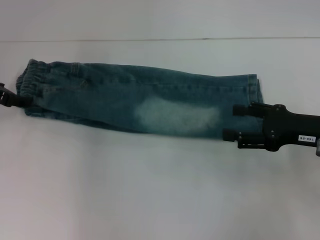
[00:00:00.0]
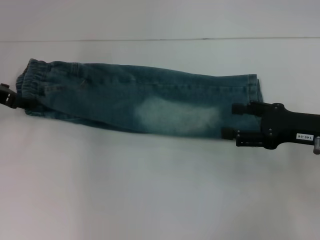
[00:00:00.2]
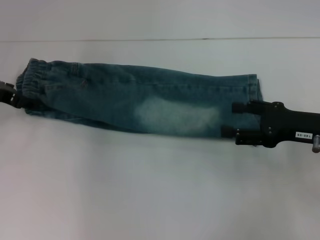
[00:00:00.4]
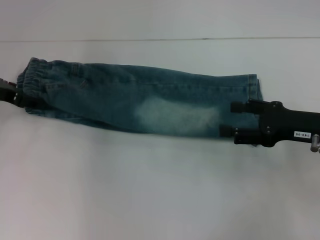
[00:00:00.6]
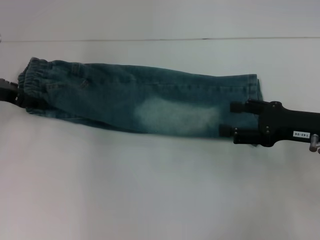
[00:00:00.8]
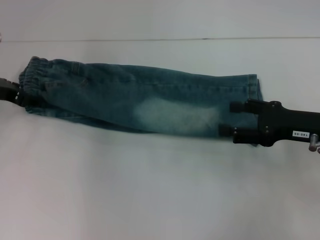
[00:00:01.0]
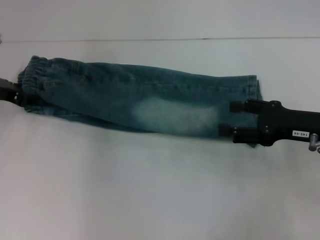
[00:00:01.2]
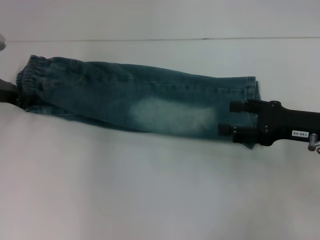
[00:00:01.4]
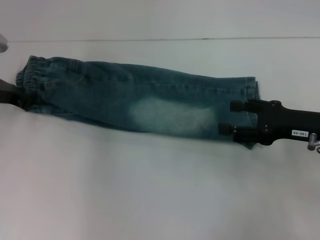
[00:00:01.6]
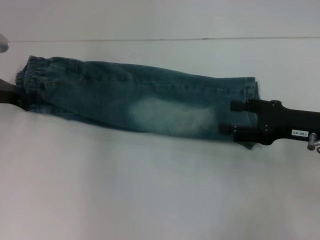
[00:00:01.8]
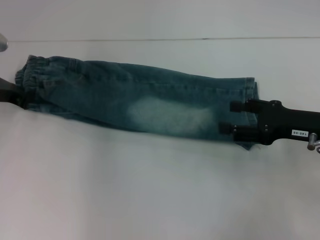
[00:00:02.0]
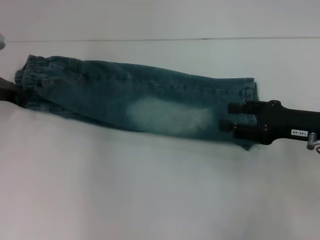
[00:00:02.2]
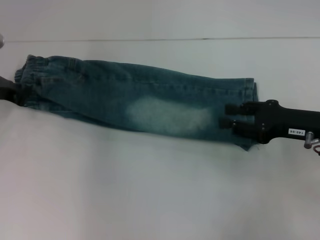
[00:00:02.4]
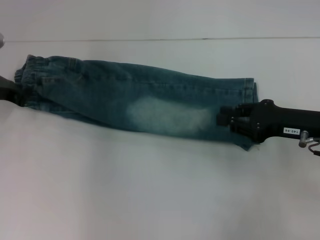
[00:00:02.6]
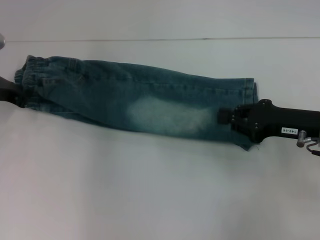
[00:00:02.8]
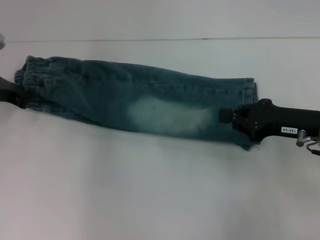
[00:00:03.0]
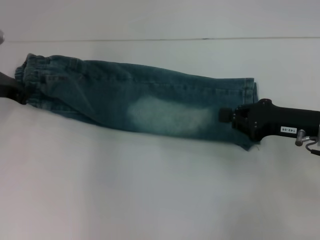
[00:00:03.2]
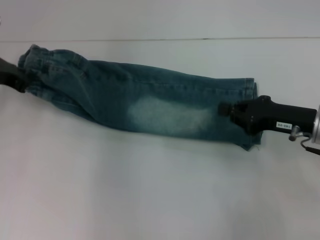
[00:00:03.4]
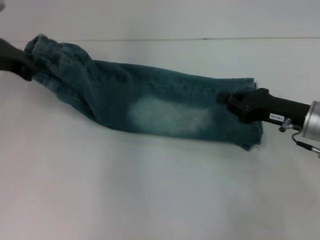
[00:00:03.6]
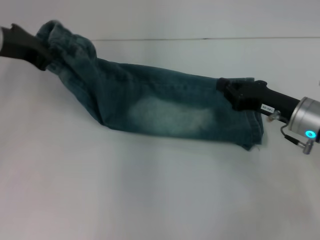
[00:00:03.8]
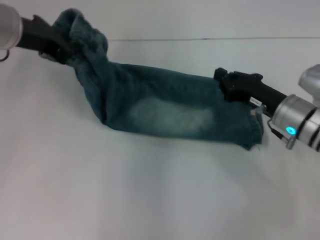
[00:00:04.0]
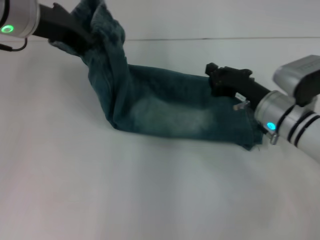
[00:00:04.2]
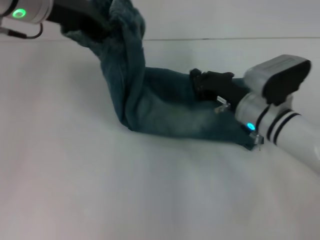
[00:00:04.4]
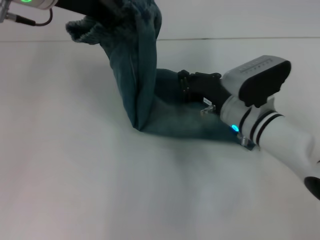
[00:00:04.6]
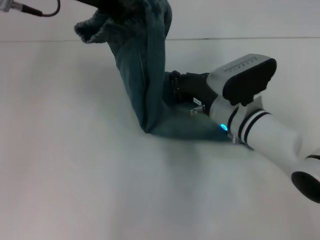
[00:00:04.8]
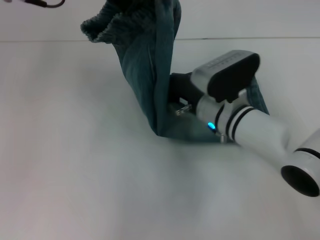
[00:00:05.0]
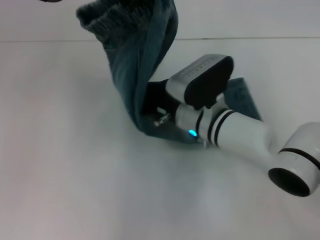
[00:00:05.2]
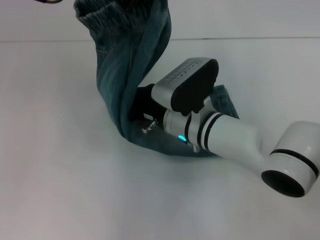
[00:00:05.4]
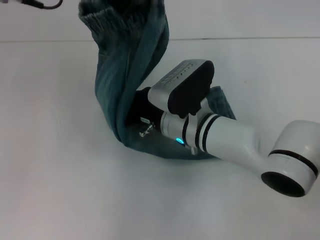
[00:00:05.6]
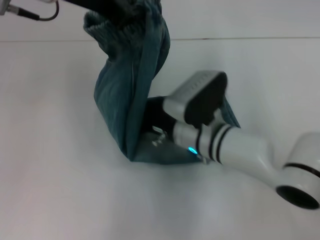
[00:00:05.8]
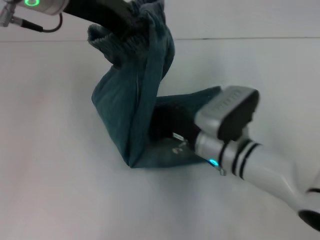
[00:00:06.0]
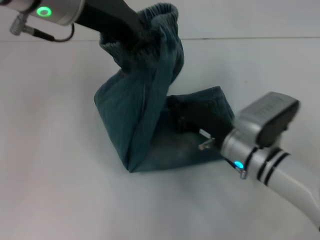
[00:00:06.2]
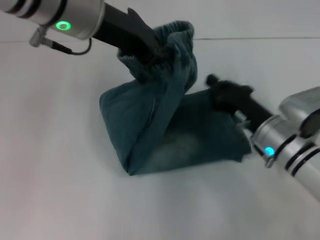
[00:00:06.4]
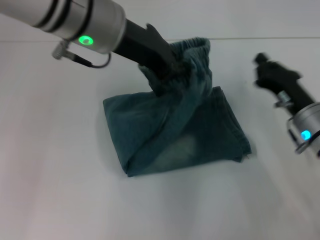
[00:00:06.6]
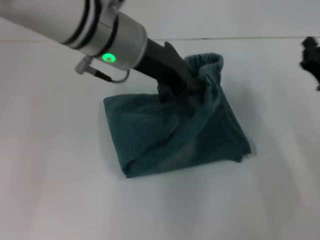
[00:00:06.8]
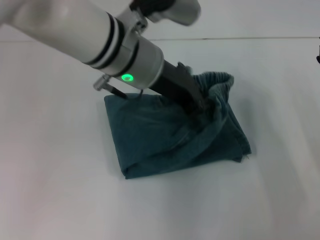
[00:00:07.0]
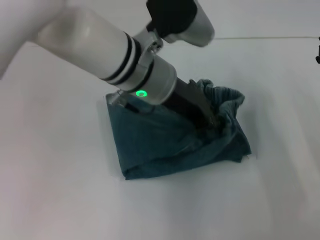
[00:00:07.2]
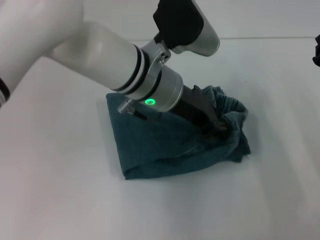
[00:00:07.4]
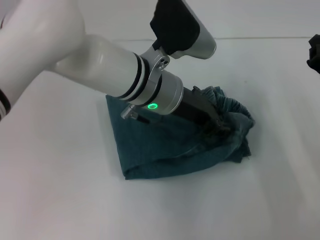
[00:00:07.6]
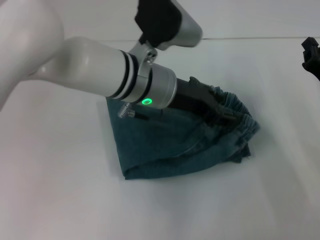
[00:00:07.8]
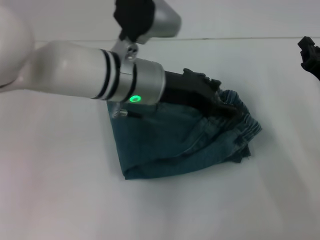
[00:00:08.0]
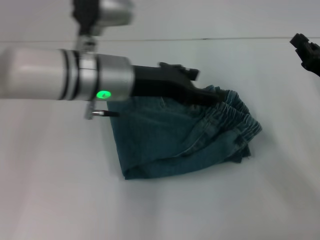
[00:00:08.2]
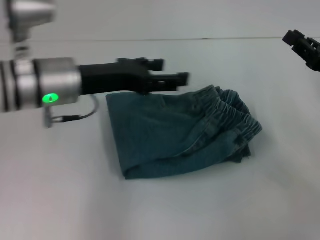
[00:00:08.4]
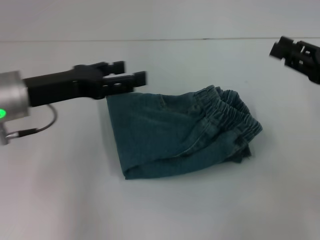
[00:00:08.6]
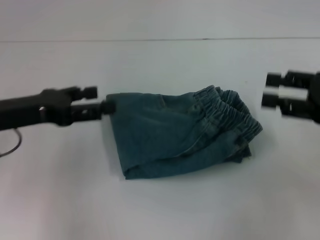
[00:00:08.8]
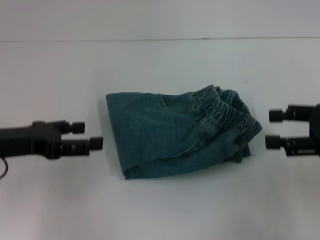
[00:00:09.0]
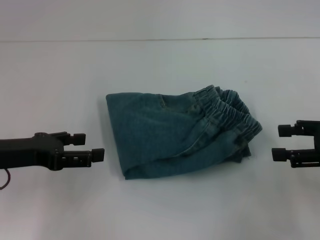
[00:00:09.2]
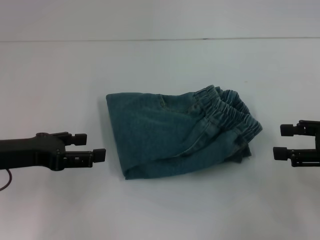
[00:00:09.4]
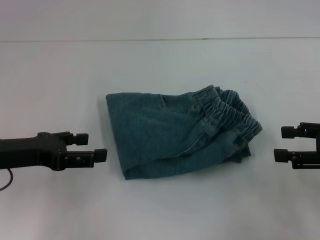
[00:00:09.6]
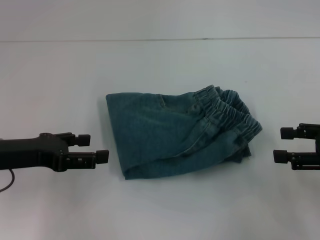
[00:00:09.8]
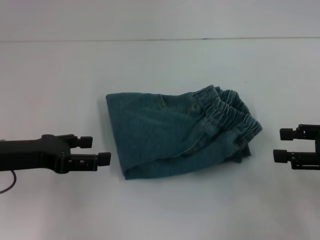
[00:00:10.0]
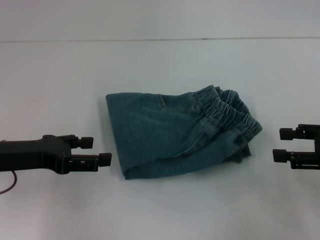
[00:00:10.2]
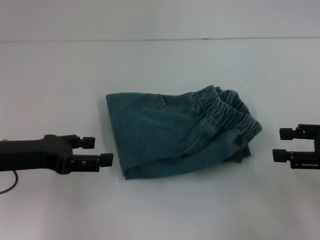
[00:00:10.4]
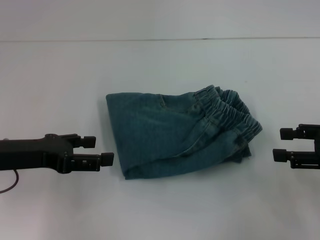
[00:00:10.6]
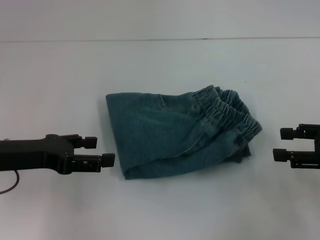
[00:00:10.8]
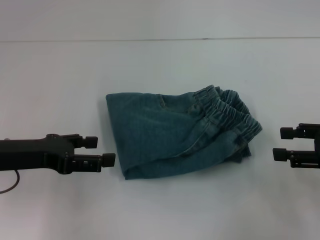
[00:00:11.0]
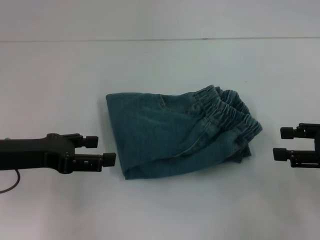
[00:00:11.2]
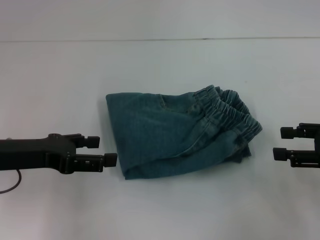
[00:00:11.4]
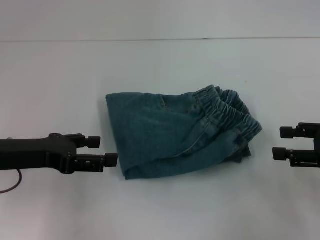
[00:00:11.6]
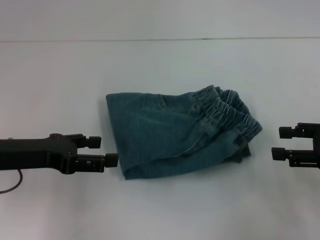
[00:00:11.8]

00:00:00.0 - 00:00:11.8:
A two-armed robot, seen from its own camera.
Step, 00:00:02.0 - 00:00:05.8: Press the middle of the pants with your right hand.
Step, 00:00:06.2 - 00:00:08.0: Fold to the right with your left hand.
00:00:00.0 - 00:00:01.4: The grippers move only a little.
00:00:01.4 - 00:00:03.0: The right gripper closes, while the left gripper closes up.
00:00:03.0 - 00:00:04.4: The right gripper goes roughly 10 cm to the left, while the left gripper moves upward and to the right, some 20 cm.
00:00:04.4 - 00:00:06.0: The right gripper travels to the left by about 5 cm.
00:00:06.0 - 00:00:07.4: The left gripper shifts about 15 cm downward and to the right, while the right gripper travels to the right by some 20 cm.
00:00:07.4 - 00:00:08.8: The left gripper travels to the left by about 25 cm, and opens up. Meanwhile the right gripper shifts roughly 10 cm upward, and opens up.
00:00:08.8 - 00:00:10.4: The right gripper changes place by roughly 5 cm, and opens up.
00:00:10.4 - 00:00:11.8: Both grippers stay put.

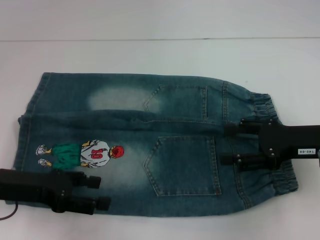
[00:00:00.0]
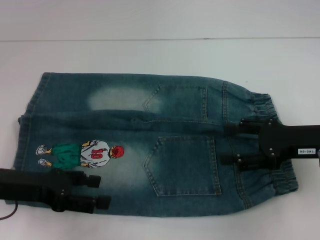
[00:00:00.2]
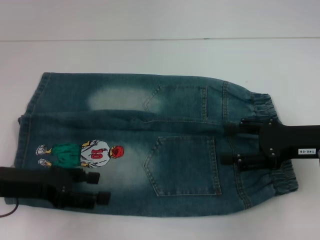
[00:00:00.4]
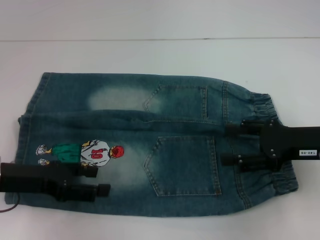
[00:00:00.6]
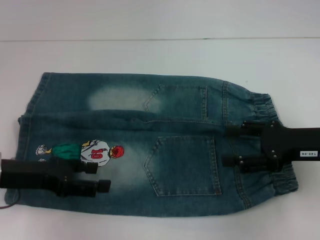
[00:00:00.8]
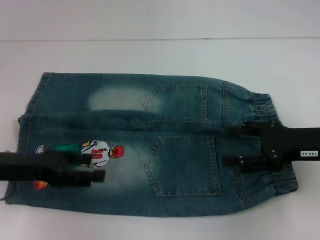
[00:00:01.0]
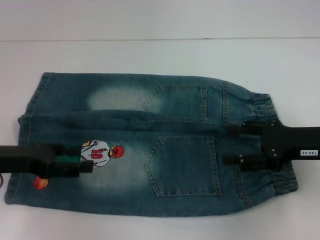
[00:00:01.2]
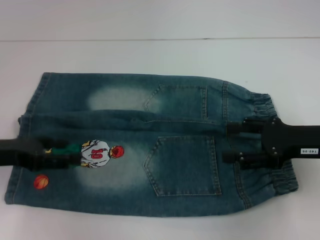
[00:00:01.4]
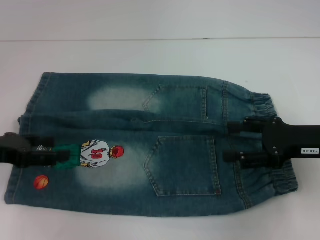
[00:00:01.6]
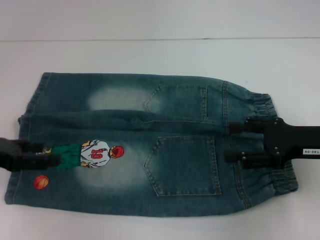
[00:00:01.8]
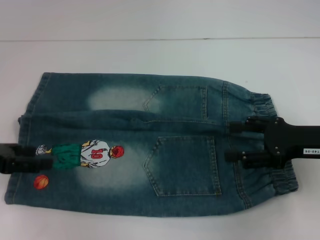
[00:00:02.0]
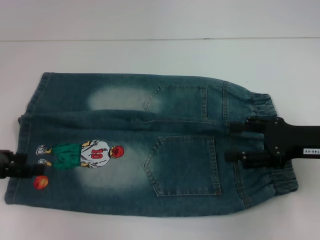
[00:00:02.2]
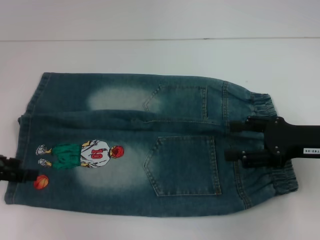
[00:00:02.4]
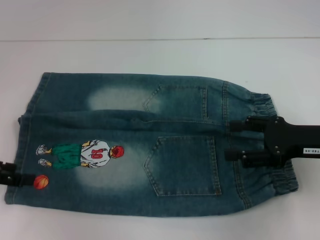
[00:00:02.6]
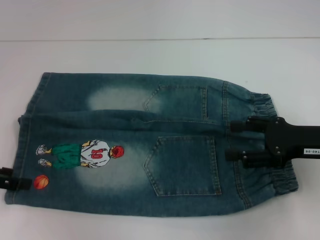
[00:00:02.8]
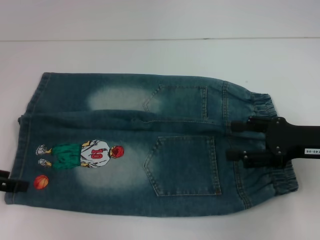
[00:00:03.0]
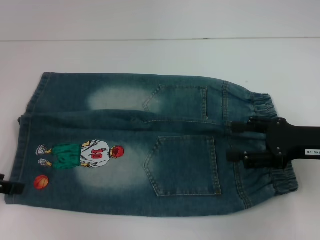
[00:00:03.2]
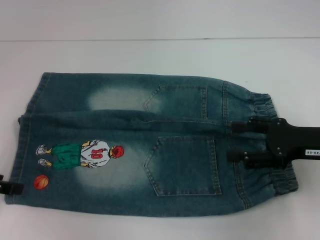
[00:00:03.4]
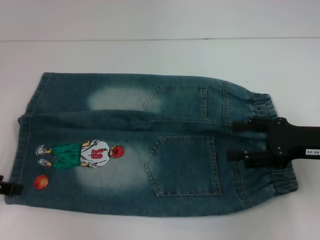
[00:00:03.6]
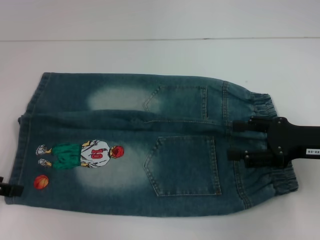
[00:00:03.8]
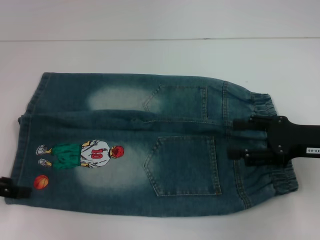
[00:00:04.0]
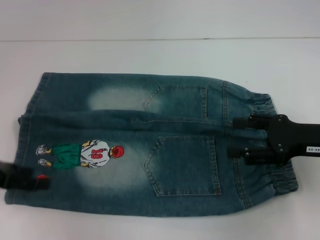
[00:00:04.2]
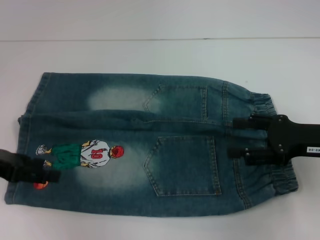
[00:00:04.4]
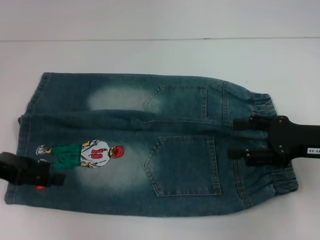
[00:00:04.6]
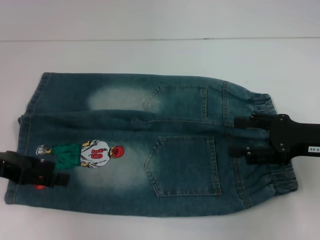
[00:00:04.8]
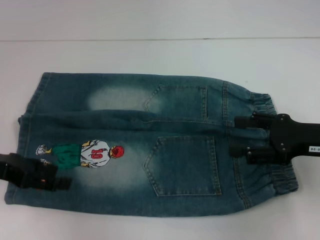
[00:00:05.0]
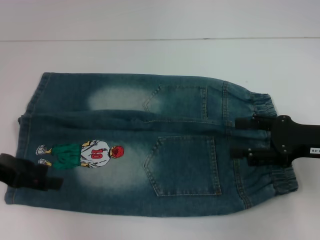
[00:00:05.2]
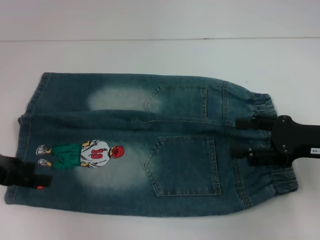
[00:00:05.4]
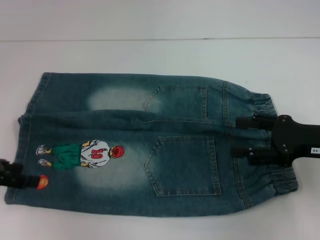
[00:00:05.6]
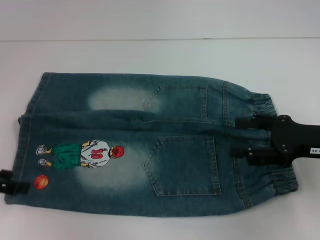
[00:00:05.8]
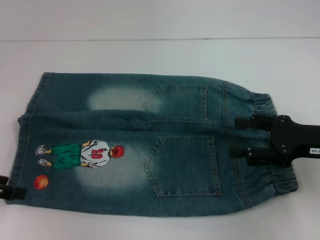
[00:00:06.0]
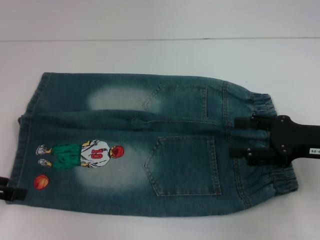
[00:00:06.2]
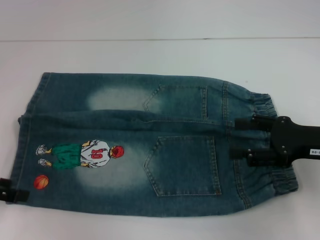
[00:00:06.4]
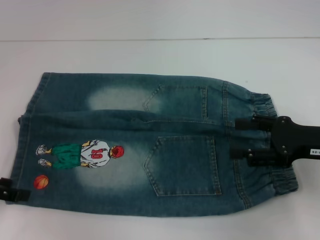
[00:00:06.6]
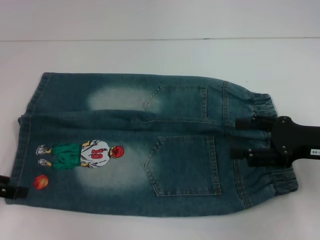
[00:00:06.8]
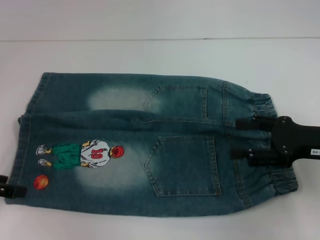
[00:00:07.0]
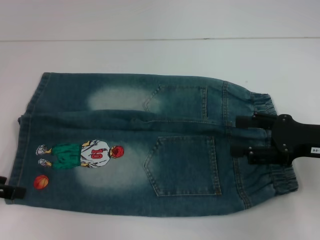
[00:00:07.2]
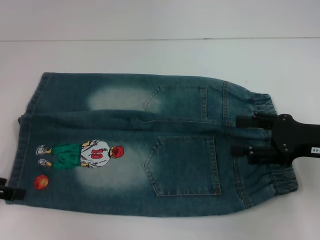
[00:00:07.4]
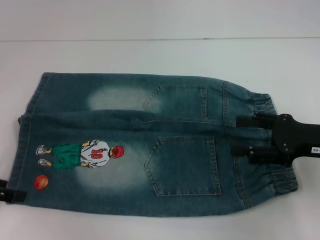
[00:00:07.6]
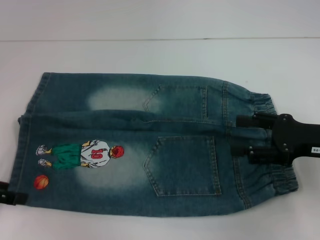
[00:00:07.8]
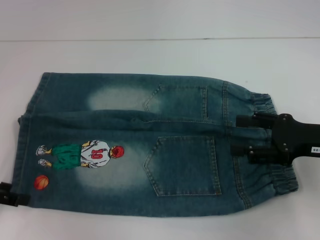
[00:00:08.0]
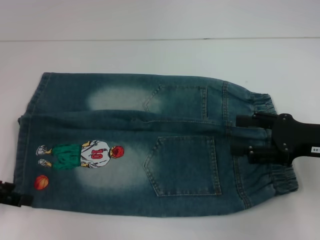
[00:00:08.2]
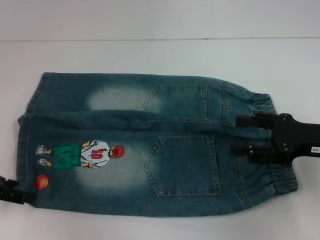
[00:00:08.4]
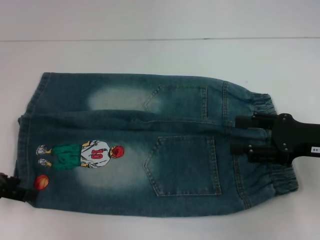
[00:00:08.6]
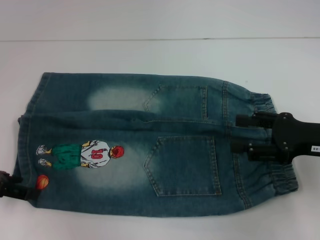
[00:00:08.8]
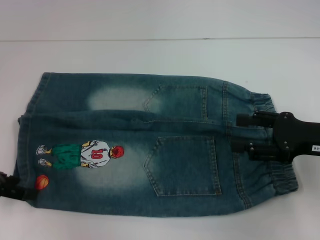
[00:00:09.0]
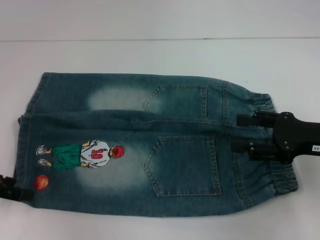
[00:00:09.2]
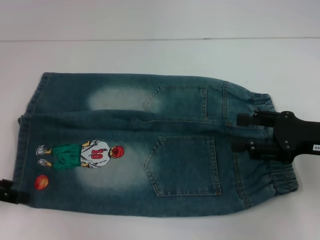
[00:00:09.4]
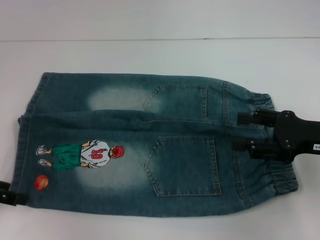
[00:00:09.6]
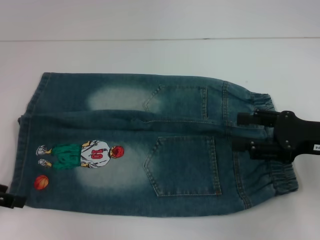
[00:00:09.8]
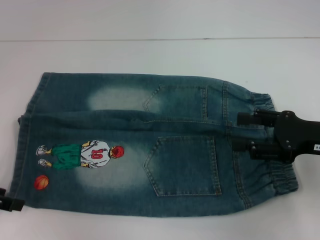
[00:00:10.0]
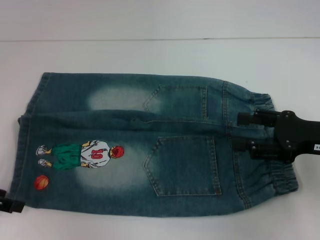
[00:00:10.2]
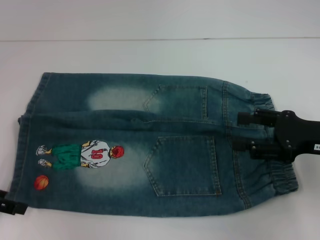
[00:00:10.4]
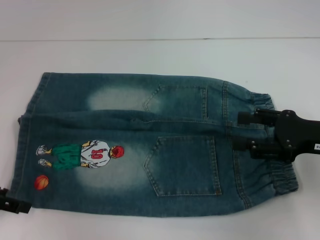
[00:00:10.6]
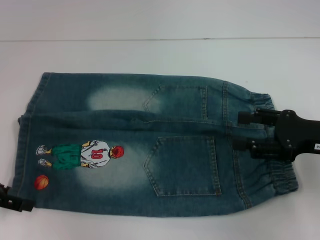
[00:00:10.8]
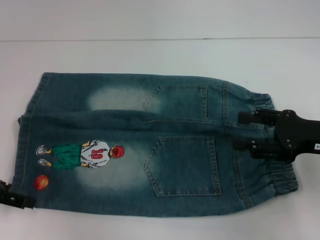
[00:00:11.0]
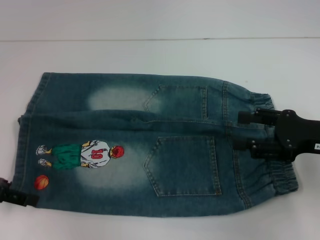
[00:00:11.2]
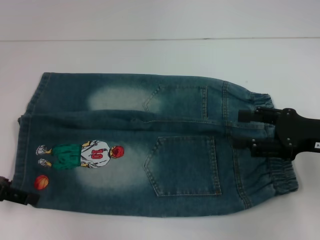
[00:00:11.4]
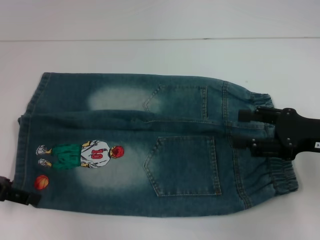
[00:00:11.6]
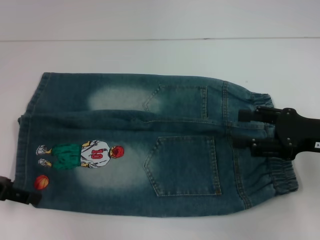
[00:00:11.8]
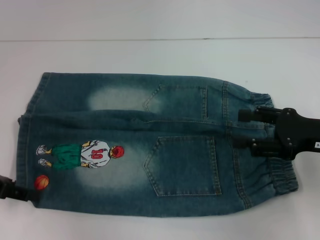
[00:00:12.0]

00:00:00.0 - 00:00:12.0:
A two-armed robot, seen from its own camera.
Step, 00:00:00.0 - 00:00:11.8: Grab the lower left pant leg with your left hand.
00:00:00.0 - 00:00:01.6: The left gripper travels to the left by roughly 5 cm.
00:00:03.0 - 00:00:06.0: The grippers make only small movements.
00:00:06.0 - 00:00:07.6: Both grippers stay put.
00:00:07.6 - 00:00:12.0: The grippers make only small movements.
